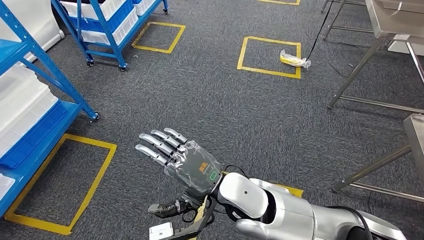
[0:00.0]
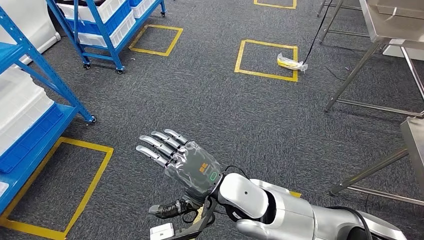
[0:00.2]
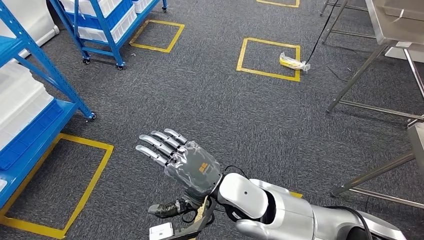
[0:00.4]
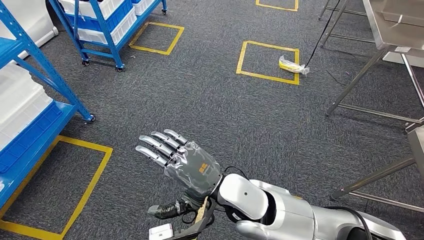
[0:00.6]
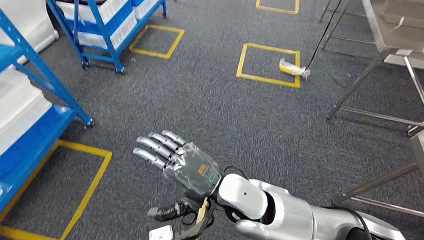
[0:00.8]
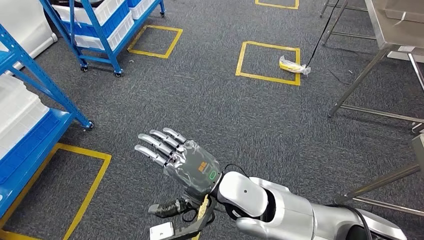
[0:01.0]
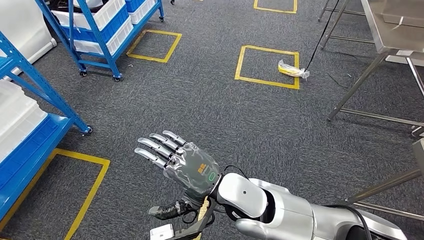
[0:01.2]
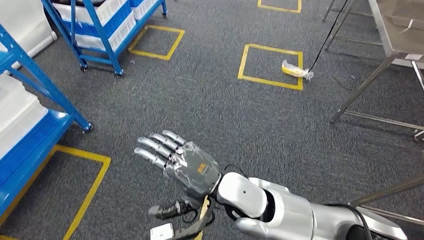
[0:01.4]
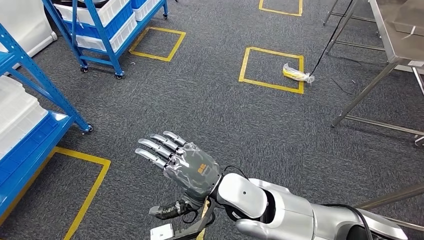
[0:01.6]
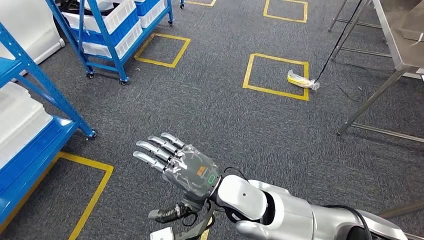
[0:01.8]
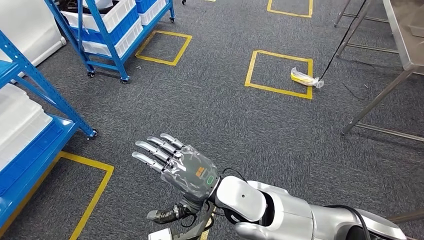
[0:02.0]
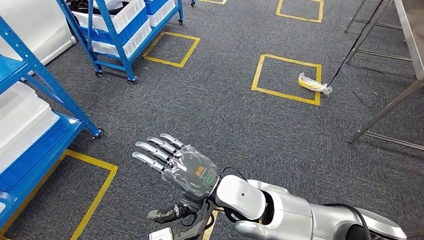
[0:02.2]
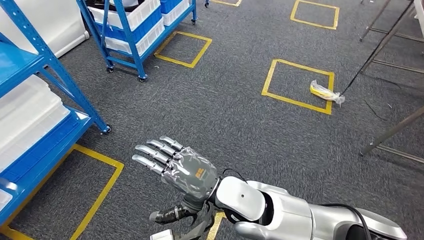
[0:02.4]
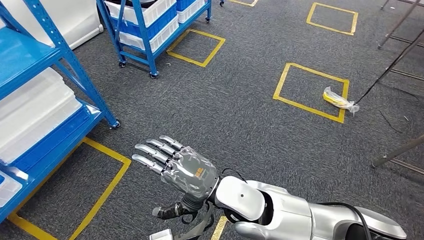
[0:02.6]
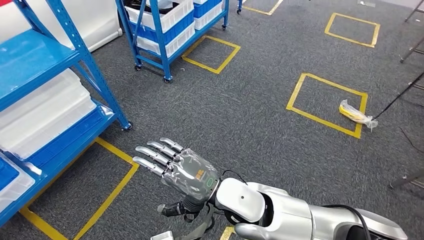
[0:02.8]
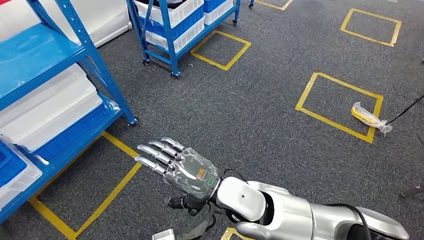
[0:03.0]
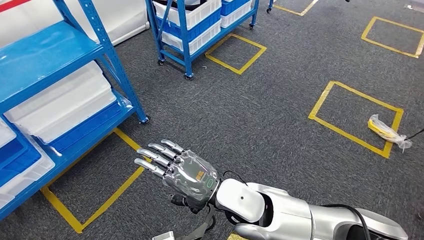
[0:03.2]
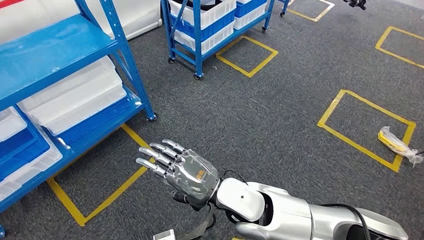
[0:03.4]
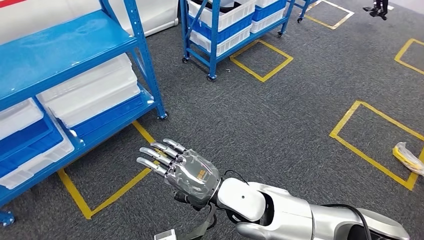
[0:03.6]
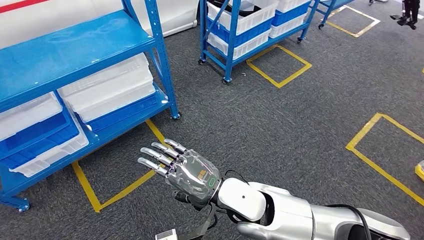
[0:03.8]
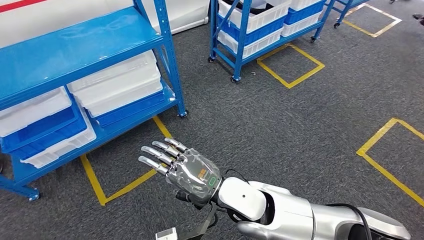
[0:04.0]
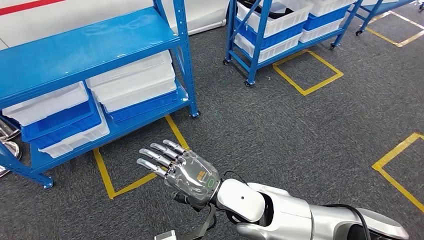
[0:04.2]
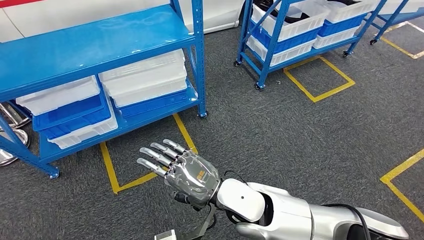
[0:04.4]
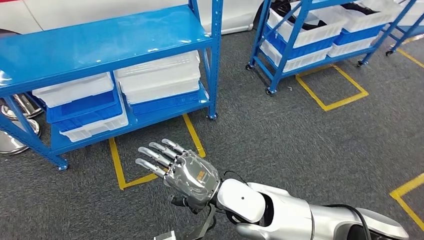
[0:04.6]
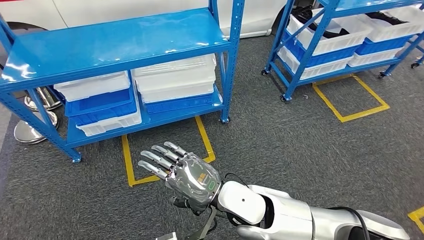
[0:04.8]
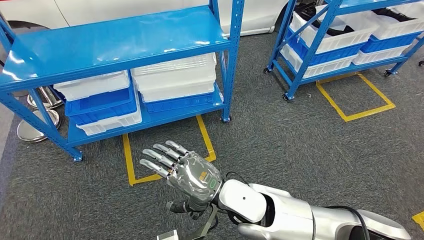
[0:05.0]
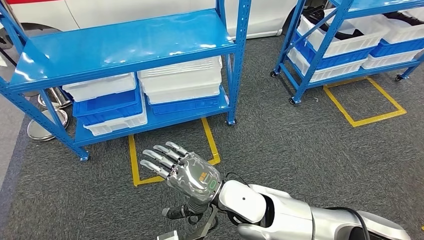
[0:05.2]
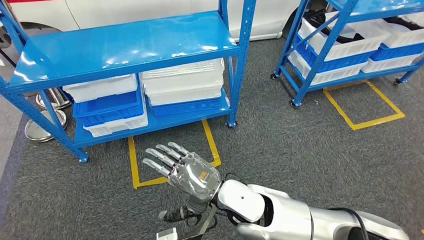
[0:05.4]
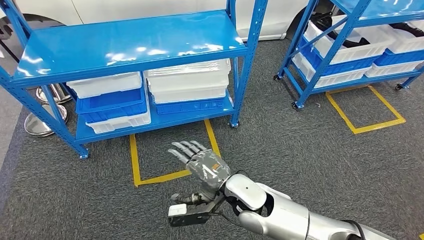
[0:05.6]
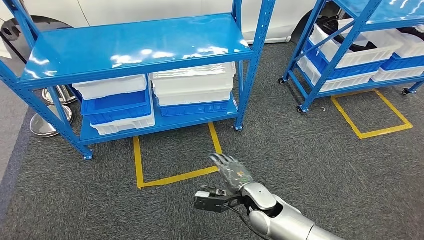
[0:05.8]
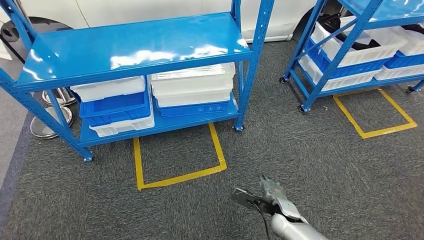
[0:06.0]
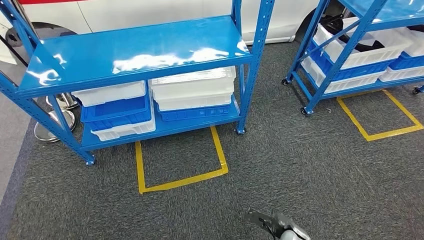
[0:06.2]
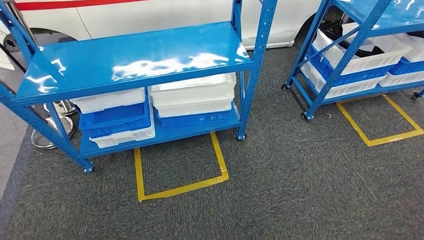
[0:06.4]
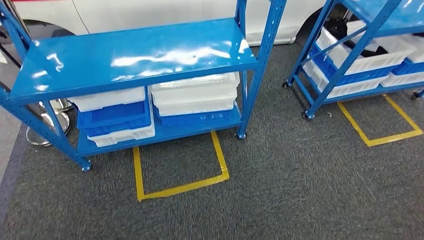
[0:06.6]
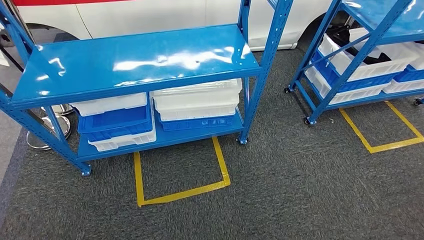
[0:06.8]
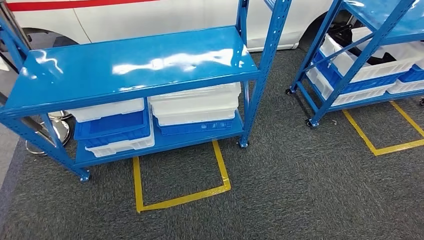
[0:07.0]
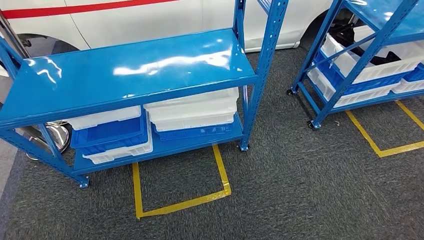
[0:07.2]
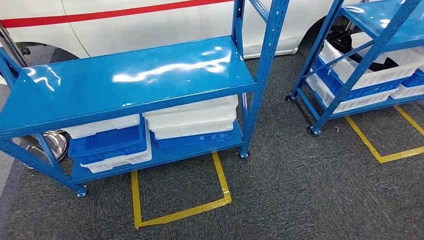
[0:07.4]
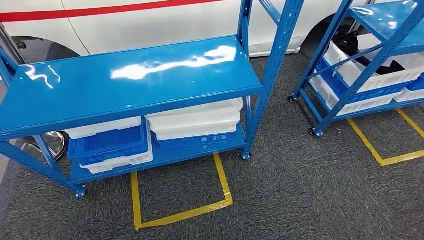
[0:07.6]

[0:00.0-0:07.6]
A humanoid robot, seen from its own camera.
Step, 0:00.0 to 0:07.6: Return to the initial position at the shelf.
